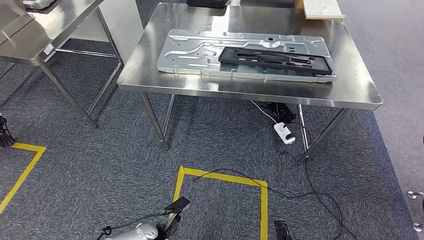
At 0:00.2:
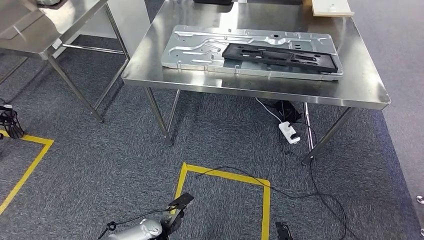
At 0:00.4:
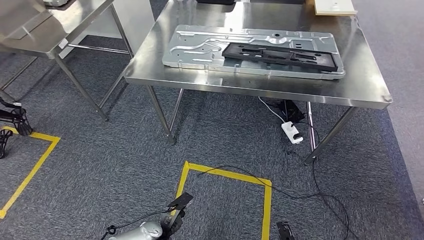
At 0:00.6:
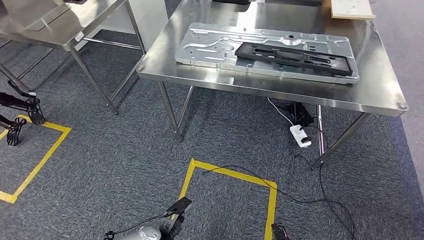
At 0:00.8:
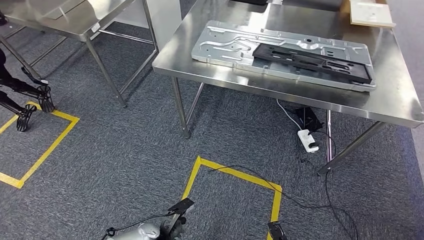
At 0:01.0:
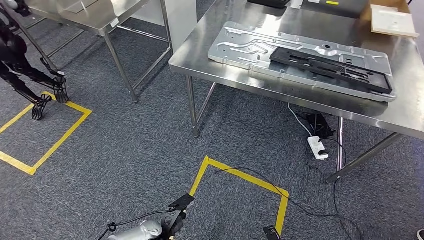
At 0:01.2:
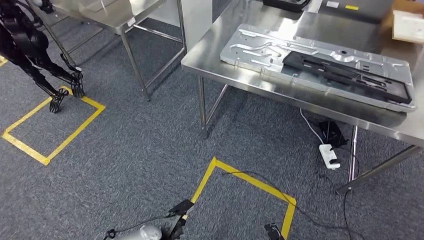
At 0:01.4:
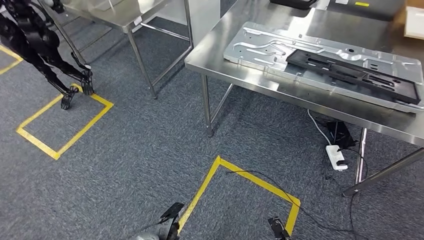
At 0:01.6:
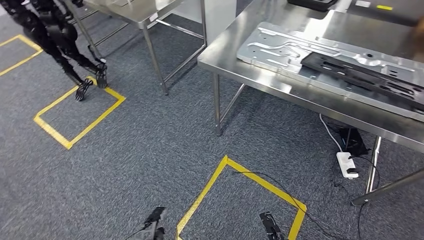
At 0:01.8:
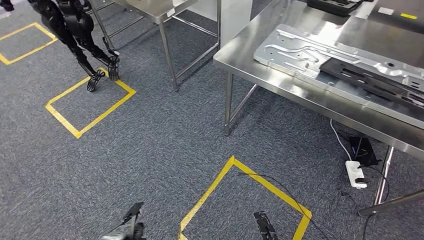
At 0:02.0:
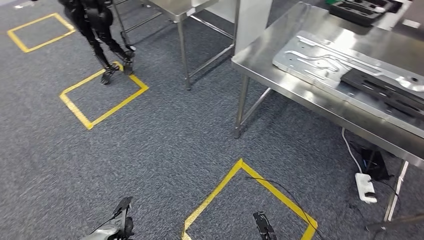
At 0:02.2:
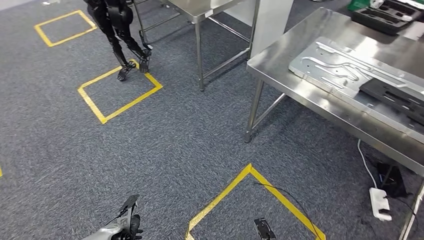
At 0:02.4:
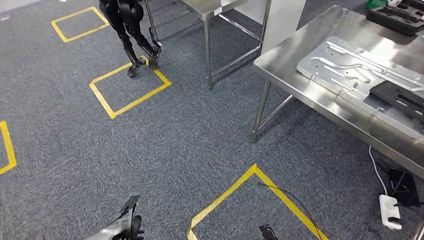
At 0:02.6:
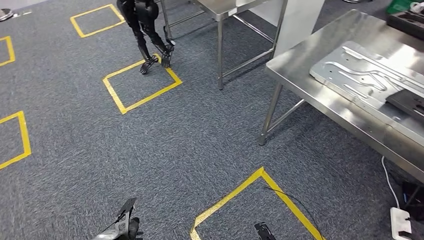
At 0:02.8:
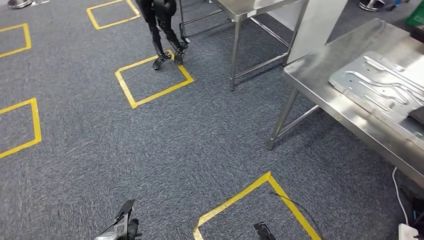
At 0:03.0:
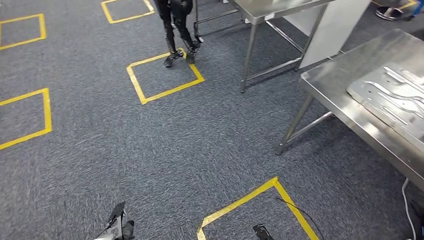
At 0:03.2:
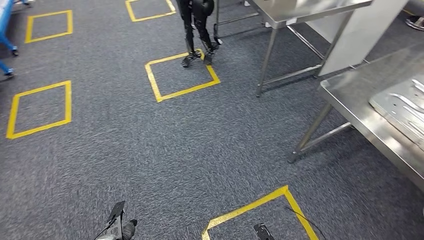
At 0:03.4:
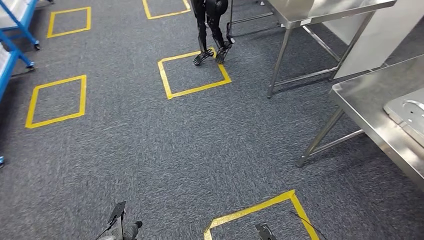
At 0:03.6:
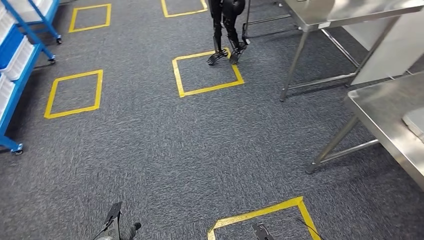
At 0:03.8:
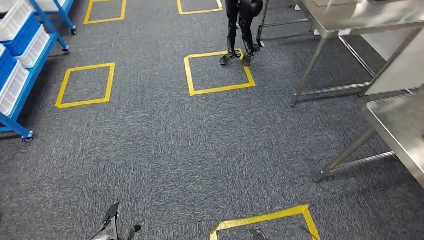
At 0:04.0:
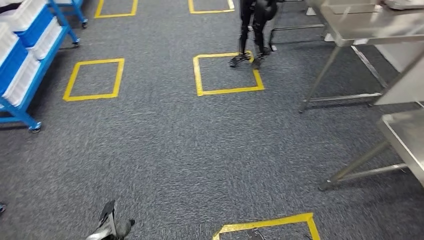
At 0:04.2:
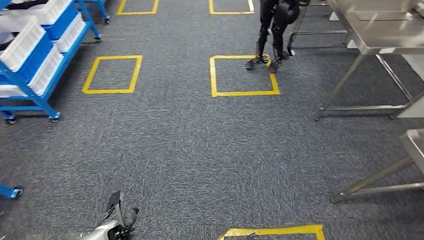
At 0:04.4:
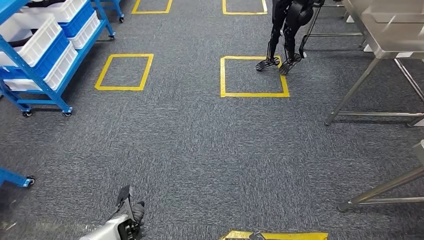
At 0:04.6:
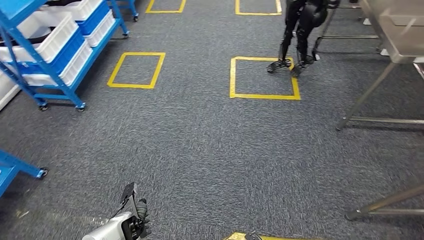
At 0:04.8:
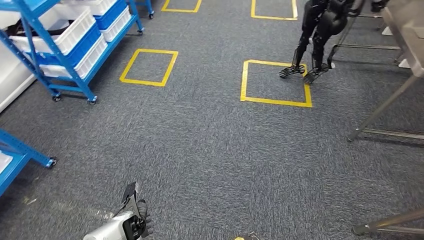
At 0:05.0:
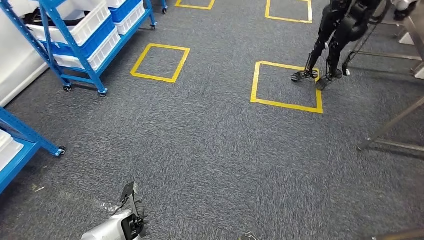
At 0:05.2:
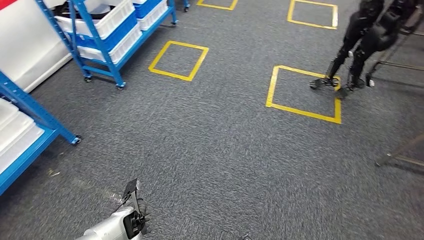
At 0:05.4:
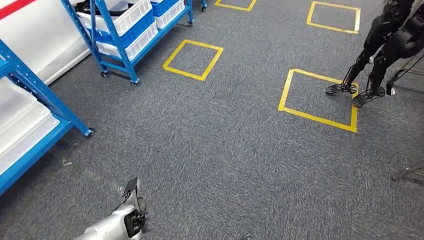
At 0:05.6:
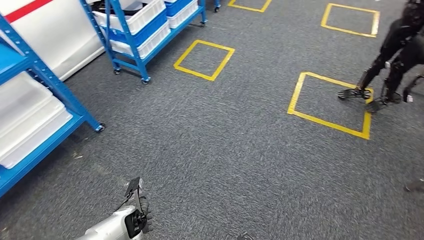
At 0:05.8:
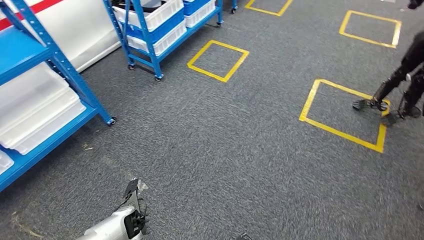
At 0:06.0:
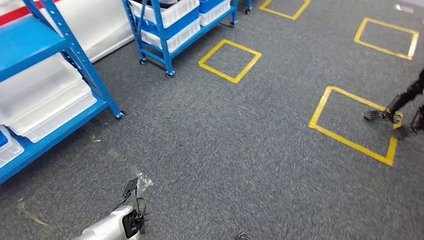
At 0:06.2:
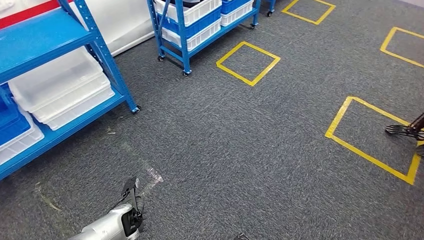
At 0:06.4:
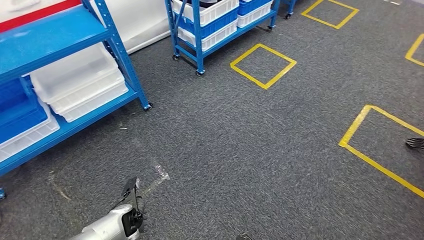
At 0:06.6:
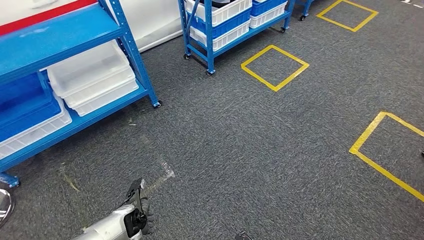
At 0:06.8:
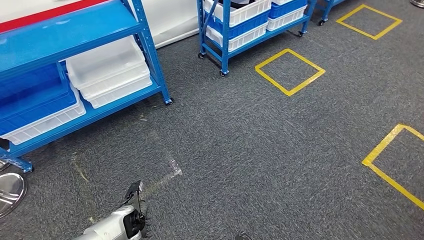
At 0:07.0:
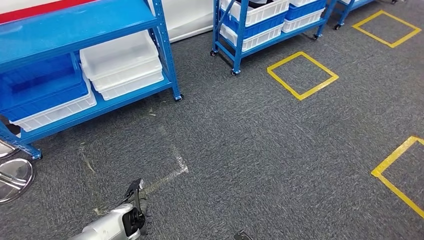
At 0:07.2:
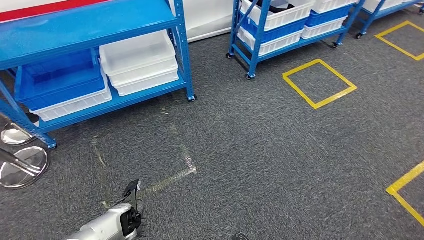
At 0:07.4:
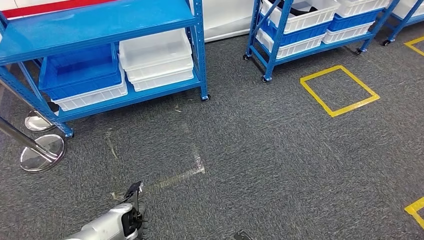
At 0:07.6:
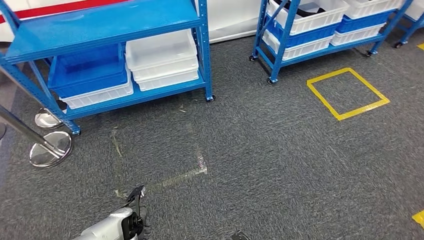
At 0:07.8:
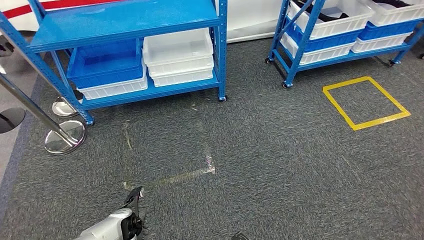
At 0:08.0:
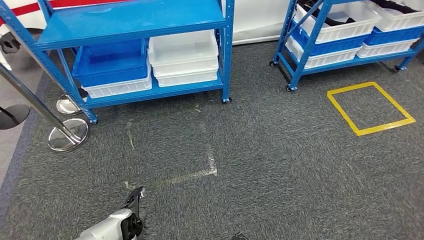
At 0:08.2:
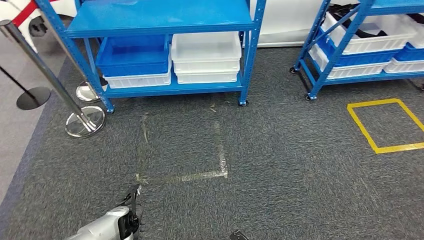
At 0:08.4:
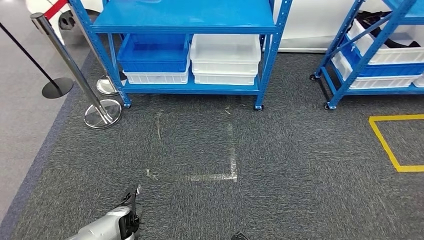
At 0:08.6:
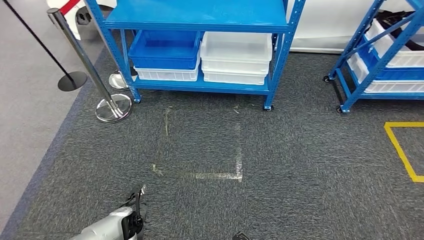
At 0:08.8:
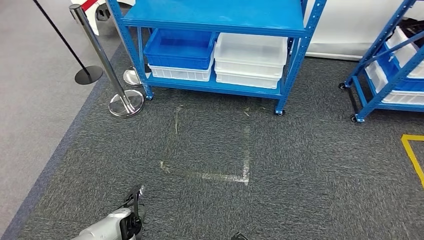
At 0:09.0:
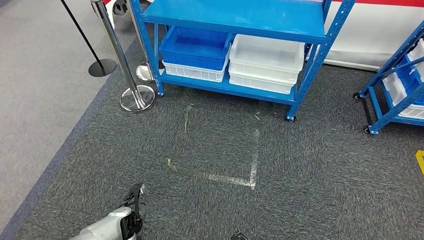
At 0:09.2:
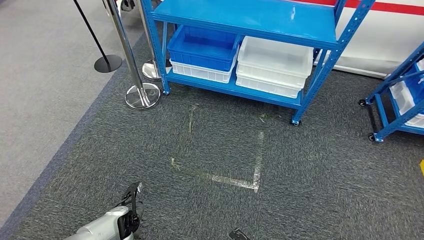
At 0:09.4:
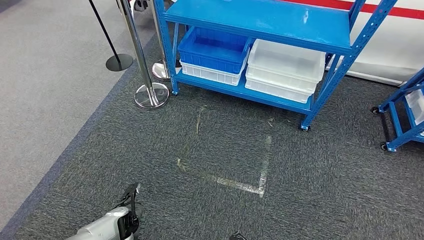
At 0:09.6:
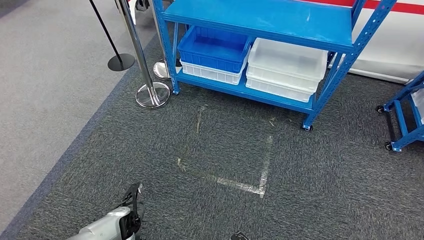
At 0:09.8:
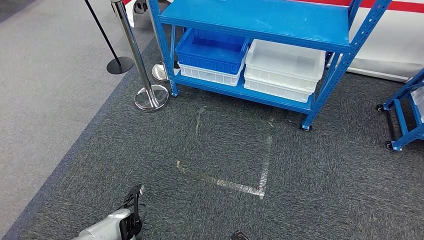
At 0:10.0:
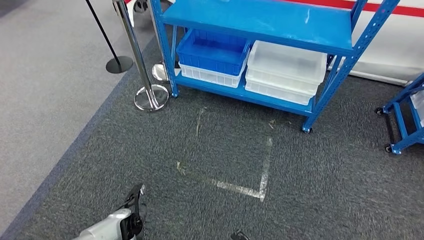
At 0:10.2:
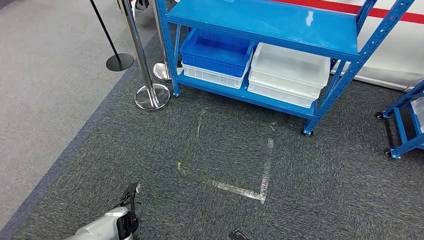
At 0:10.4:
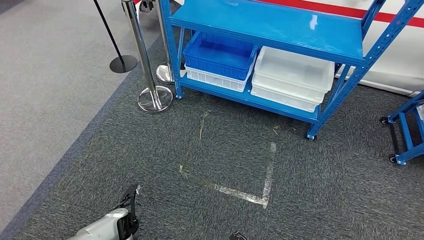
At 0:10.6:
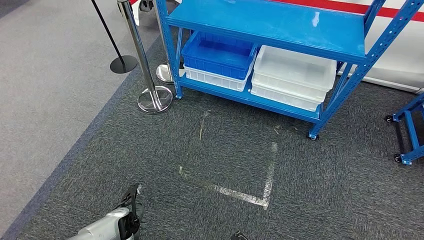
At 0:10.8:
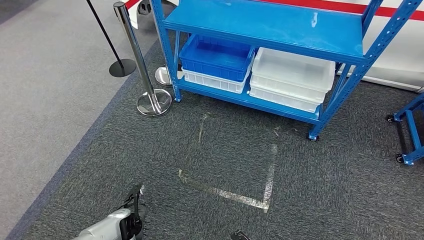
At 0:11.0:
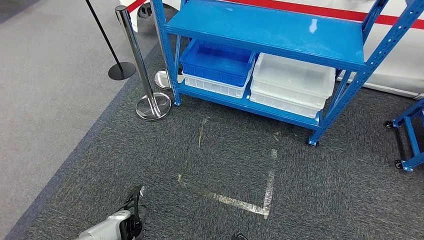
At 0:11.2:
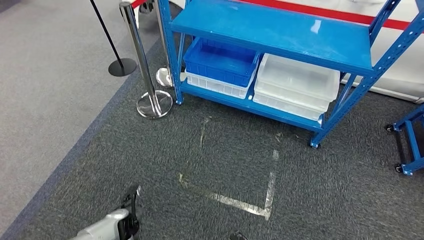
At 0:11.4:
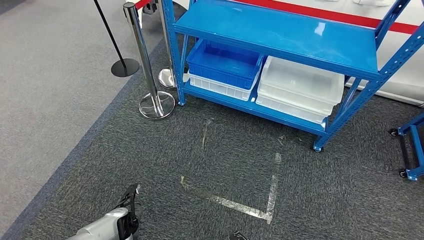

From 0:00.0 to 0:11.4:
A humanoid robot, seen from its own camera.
Step, from 0:00.0 to 0:11.4: Return to the initial position at the shelf.
